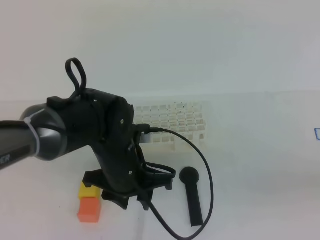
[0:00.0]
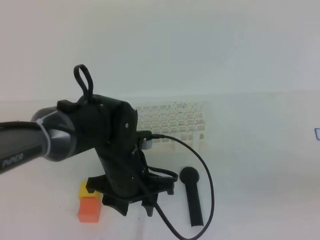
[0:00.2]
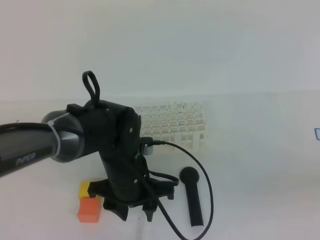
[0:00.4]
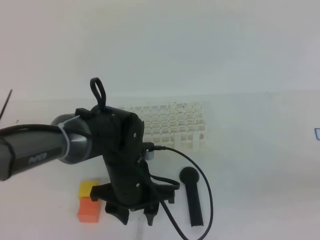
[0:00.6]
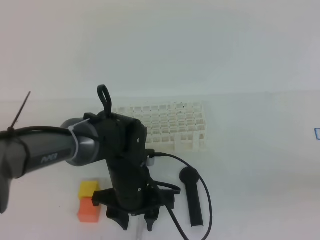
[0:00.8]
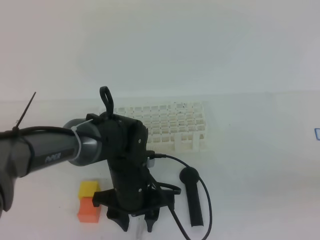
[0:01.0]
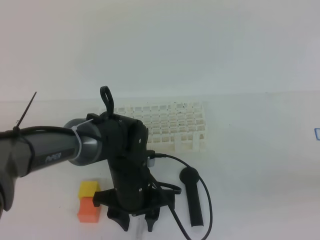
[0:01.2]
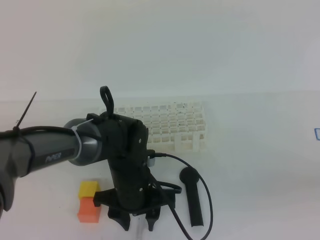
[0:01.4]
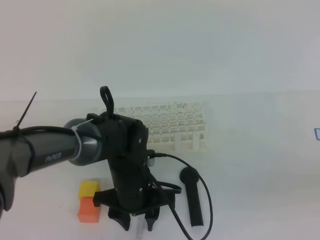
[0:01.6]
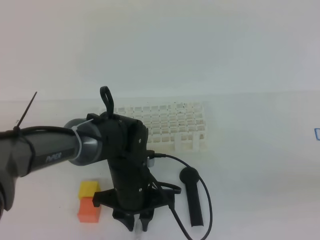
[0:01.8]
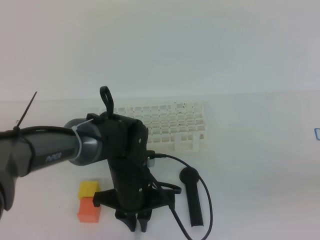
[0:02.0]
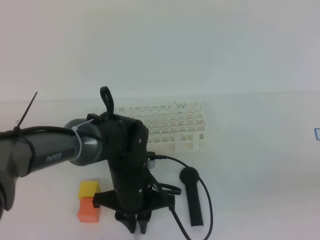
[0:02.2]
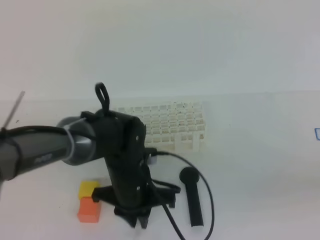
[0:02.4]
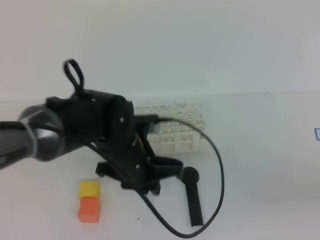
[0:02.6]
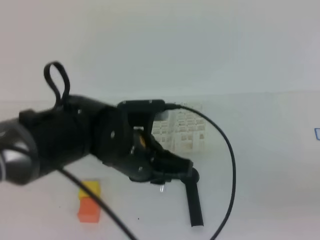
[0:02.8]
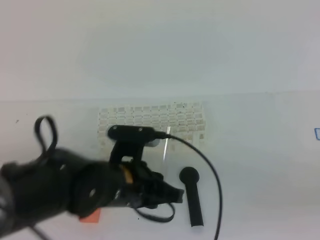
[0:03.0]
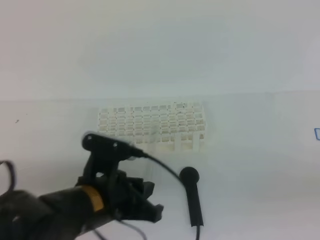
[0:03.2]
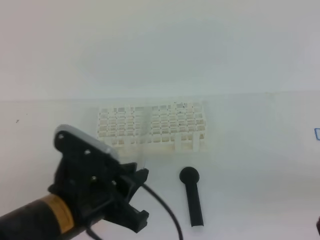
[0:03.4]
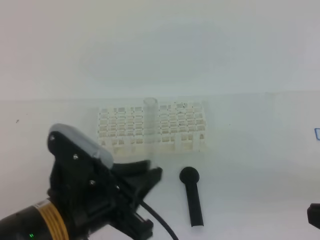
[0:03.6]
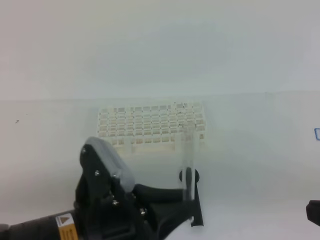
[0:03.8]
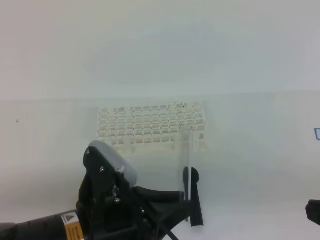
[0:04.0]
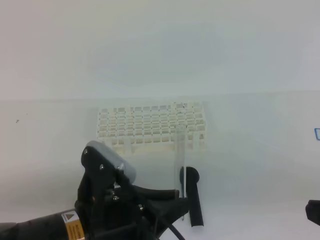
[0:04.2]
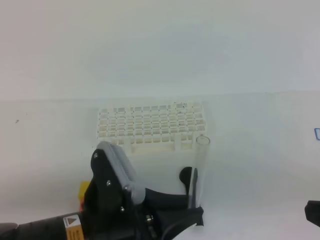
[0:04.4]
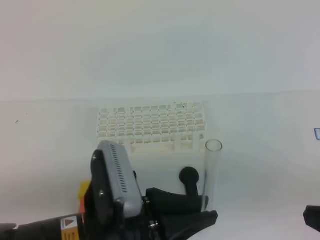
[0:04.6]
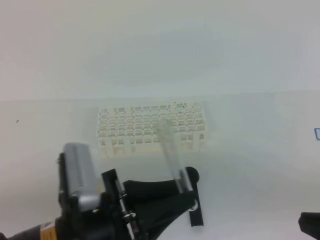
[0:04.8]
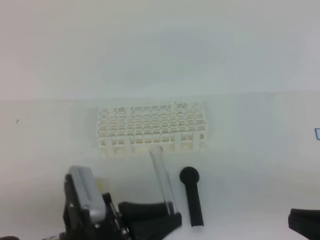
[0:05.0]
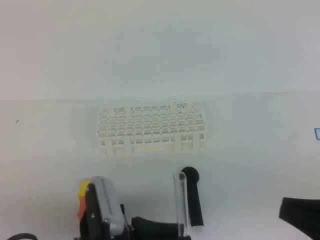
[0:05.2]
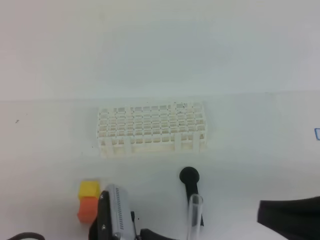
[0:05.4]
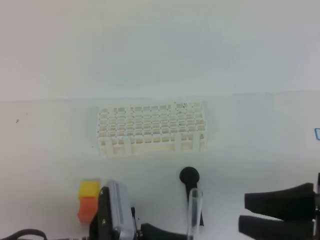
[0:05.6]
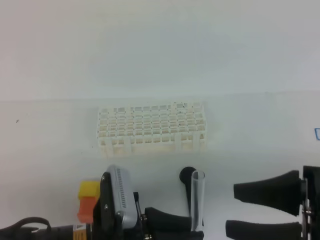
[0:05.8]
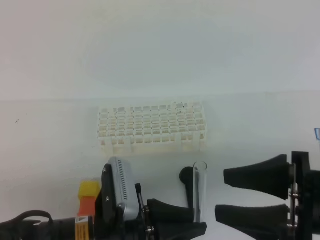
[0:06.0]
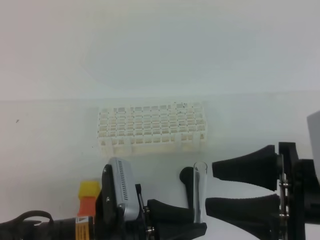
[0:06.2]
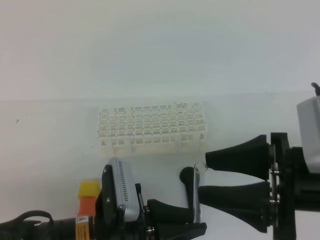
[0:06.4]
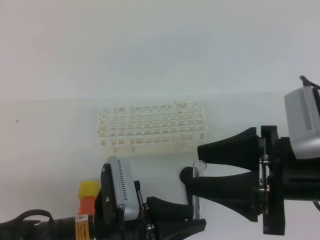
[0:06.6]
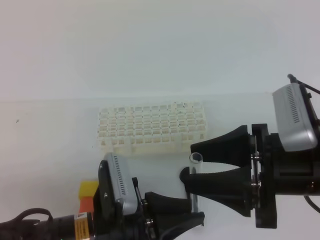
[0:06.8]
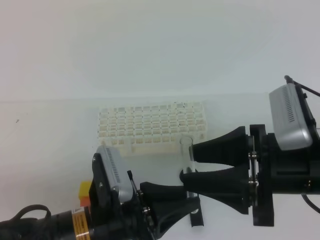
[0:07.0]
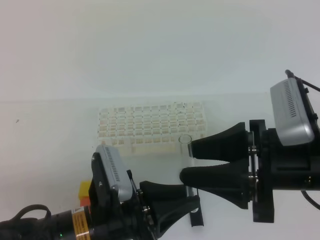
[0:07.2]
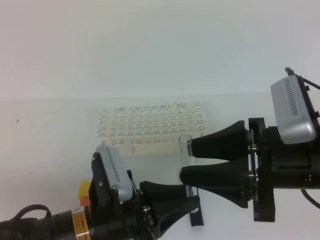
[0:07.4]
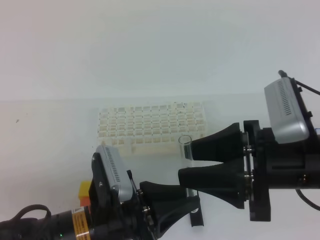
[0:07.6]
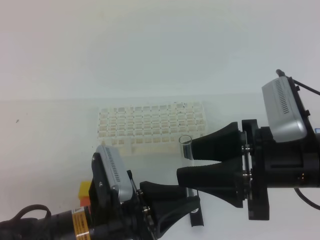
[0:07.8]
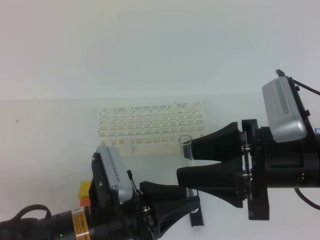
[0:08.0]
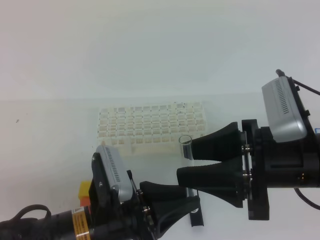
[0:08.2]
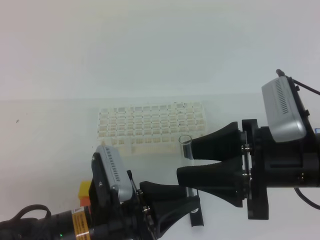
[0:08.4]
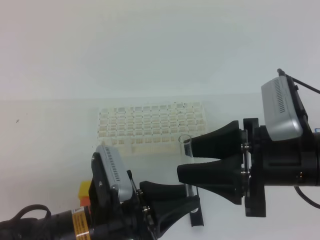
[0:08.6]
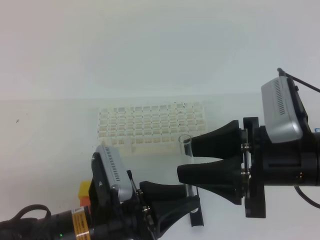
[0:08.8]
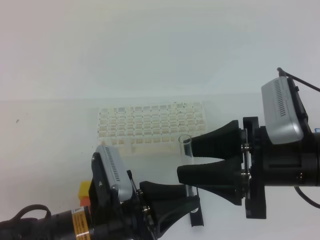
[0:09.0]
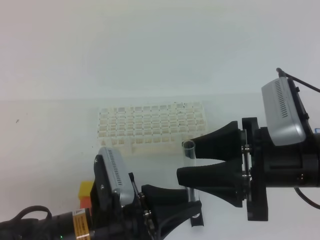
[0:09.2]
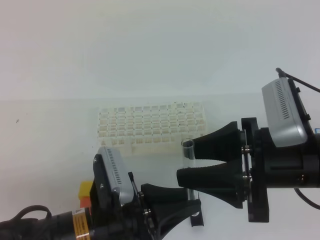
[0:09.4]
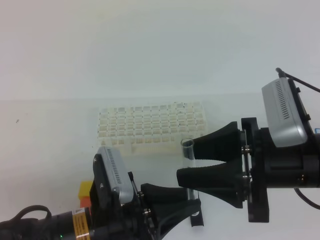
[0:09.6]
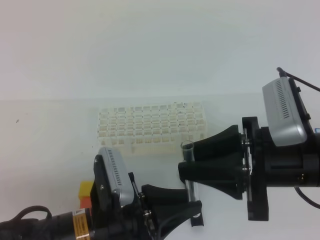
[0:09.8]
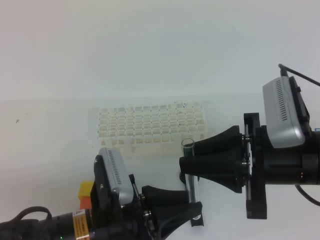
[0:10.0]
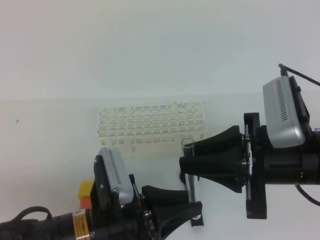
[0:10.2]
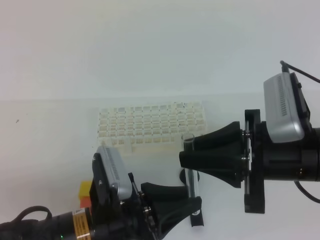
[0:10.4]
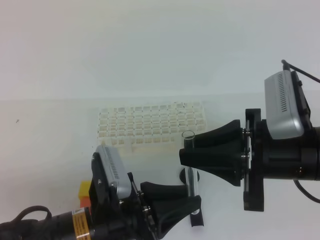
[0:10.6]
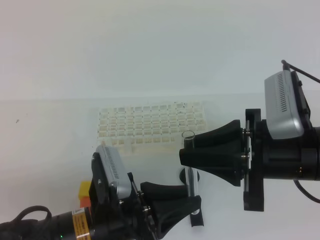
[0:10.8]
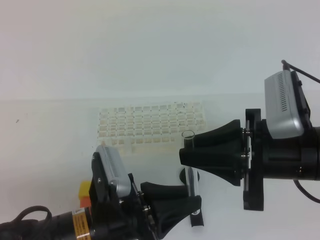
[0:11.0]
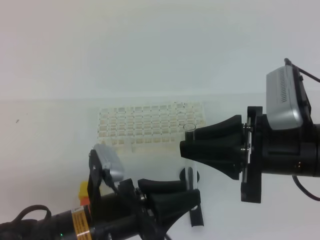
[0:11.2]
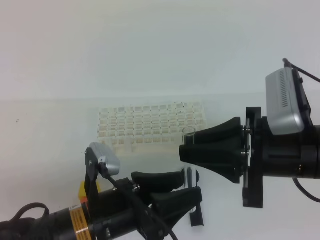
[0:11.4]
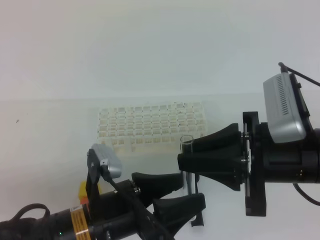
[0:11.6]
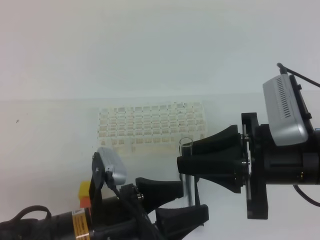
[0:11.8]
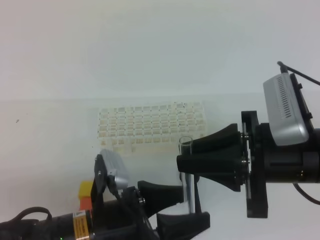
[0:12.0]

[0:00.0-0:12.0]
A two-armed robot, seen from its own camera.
0:00.0 to 0:01.6: The left gripper heads downward, covering approximately 5 cm.
0:01.6 to 0:03.0: The left gripper is displaced upward and backward by roughly 10 cm, and closes up.
0:03.0 to 0:04.4: The left gripper shifts roughly 10 cm backward.
0:04.4 to 0:06.0: The left gripper shifts by roughly 5 cm. Meanwhile the right gripper is displaced to the left by approximately 5 cm, and opens its fingers.
0:06.0 to 0:07.6: The right gripper travels forward by some 5 cm.
0:07.6 to 0:09.0: Both grippers stay about where they are.
0:09.0 to 0:10.4: The right gripper closes up.
0:10.4 to 0:12.0: The left gripper opens.

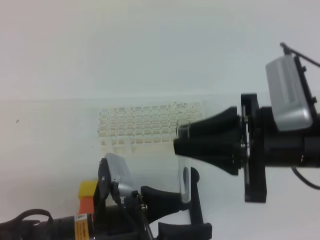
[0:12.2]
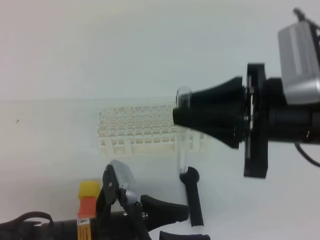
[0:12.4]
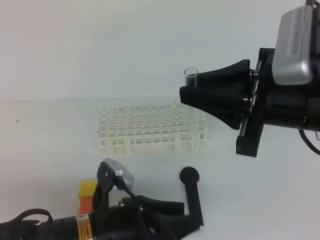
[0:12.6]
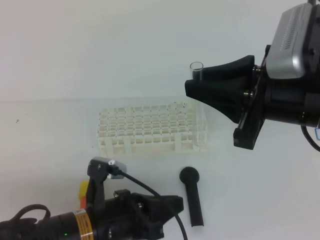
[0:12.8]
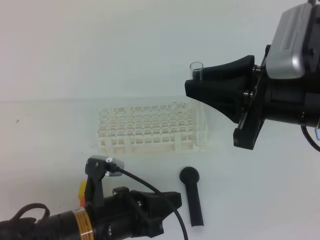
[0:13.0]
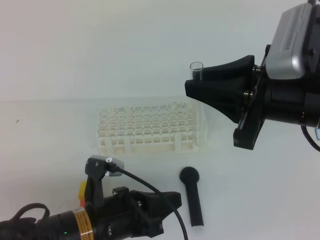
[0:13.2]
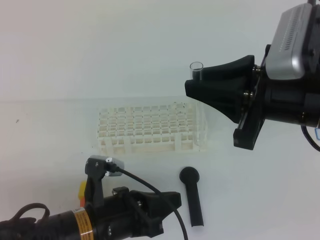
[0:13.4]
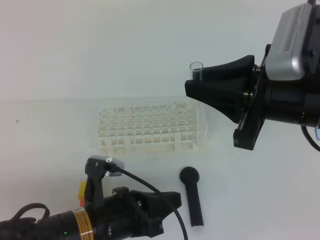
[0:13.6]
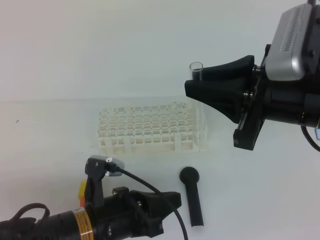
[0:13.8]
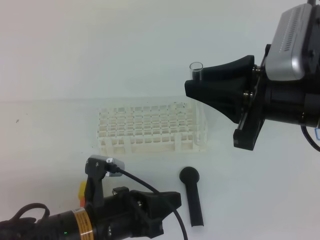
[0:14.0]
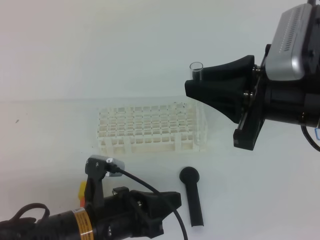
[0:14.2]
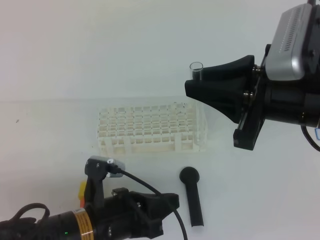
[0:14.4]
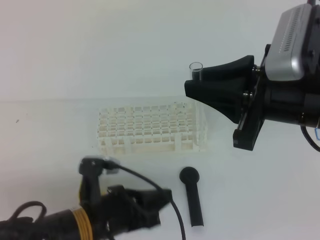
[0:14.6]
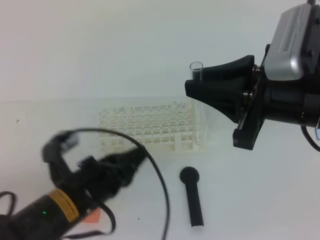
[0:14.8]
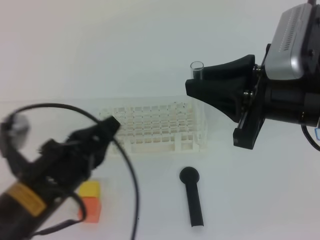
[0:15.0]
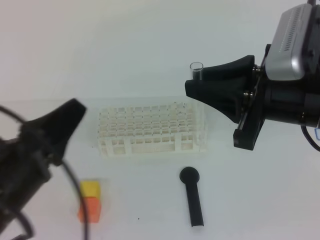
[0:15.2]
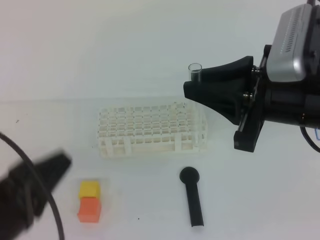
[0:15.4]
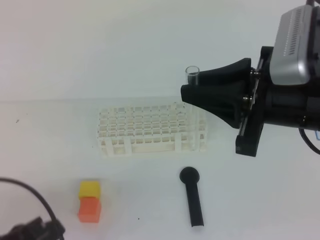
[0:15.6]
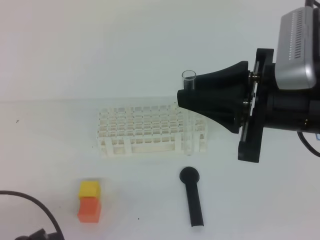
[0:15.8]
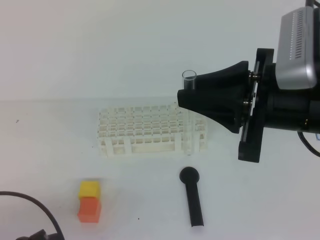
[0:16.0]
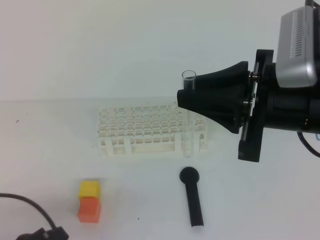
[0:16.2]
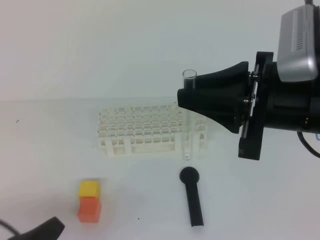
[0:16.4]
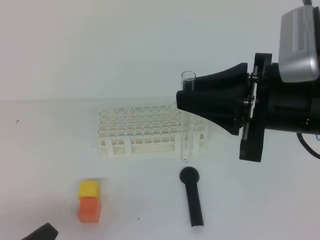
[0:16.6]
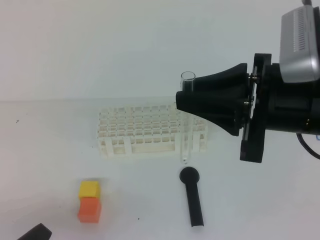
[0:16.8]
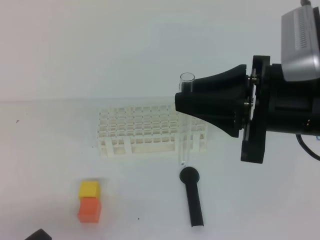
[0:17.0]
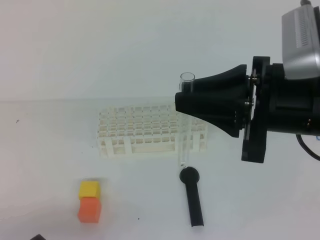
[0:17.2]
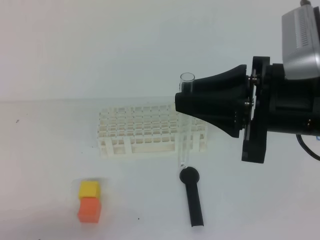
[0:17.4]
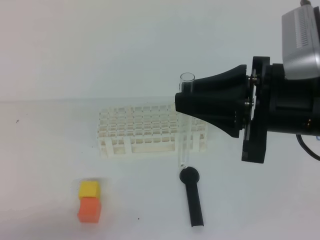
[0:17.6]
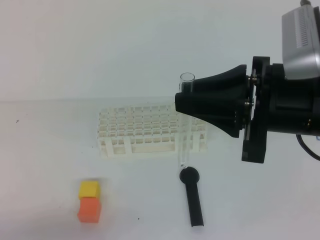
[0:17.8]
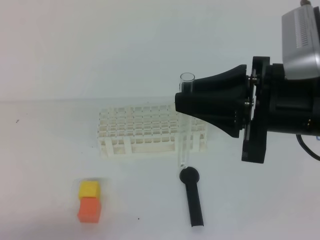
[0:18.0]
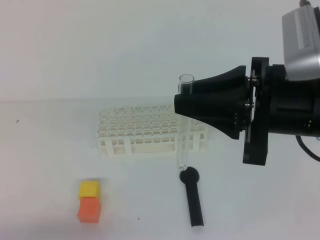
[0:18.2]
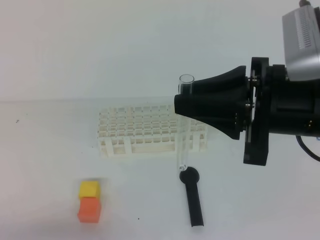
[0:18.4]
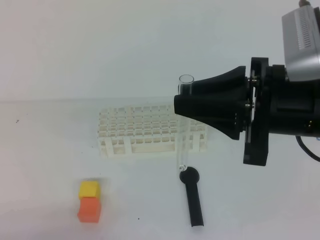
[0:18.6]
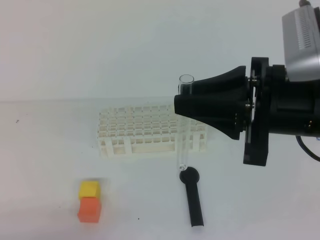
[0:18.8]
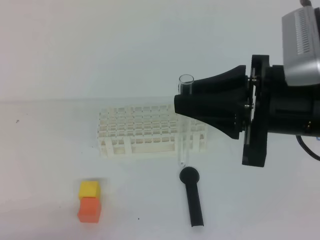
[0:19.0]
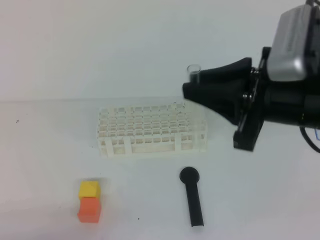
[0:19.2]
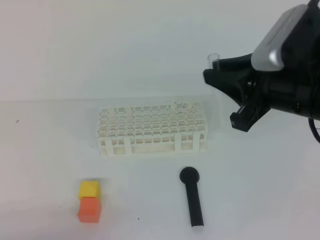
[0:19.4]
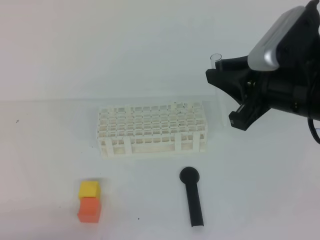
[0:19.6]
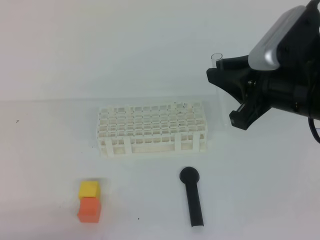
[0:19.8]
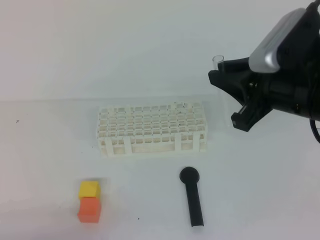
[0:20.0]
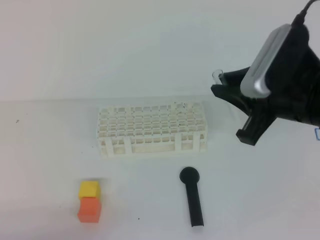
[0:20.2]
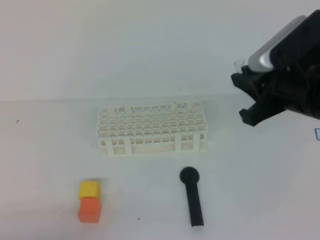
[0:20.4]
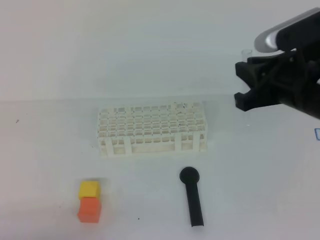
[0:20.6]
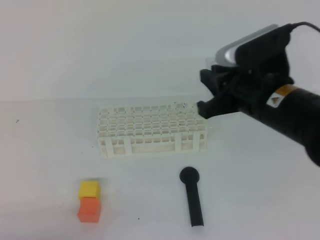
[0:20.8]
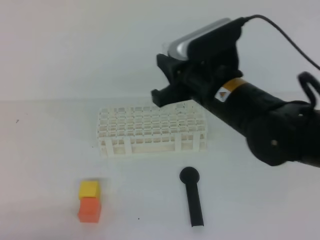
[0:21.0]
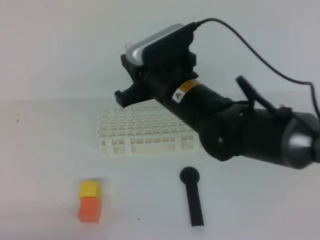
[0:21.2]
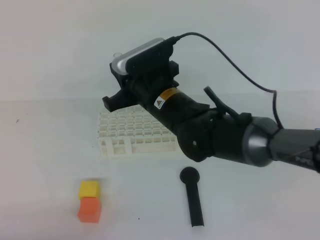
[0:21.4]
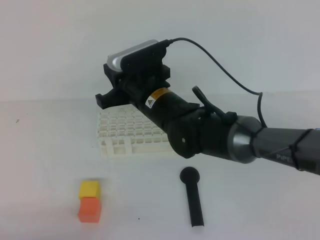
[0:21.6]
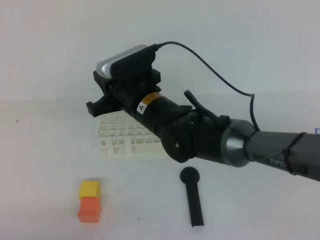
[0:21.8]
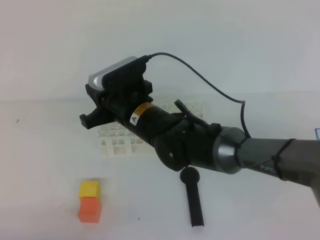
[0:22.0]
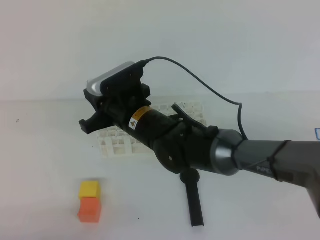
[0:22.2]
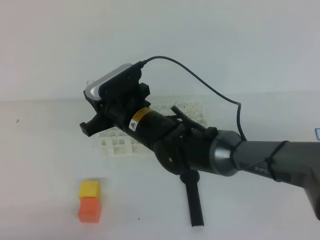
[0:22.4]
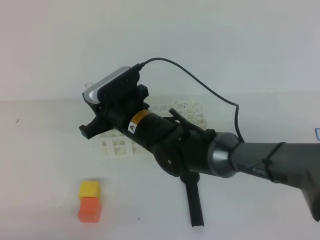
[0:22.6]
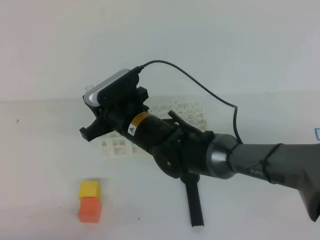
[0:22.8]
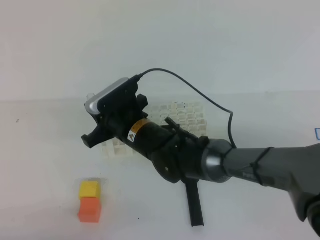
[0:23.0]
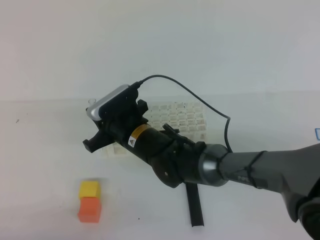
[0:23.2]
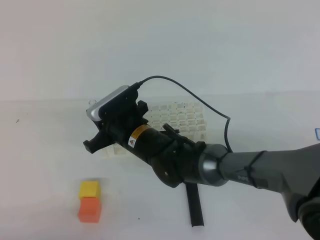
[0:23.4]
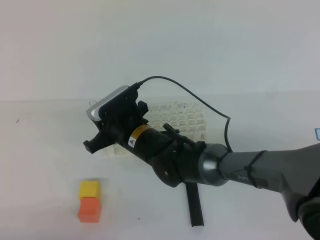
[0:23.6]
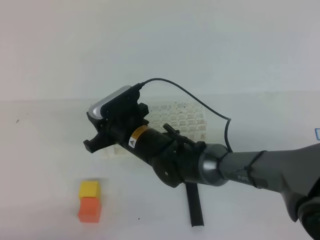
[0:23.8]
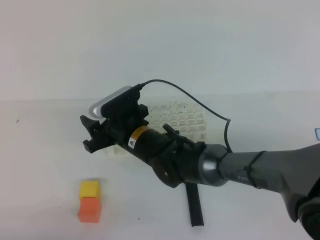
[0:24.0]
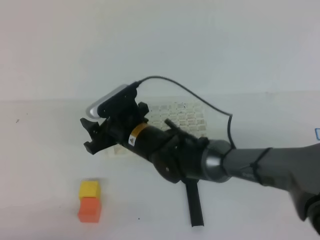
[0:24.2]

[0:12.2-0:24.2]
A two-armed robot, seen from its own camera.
0:12.2 to 0:13.8: The left gripper closes its fingers.
0:13.8 to 0:15.2: The left gripper shifts about 15 cm upward and to the left.
0:15.2 to 0:16.6: The left gripper travels downward, backward and to the left by about 15 cm.
0:16.6 to 0:18.2: The grippers stay close to where they were, moving slightly.
0:18.2 to 0:19.8: The right gripper ends up some 5 cm from where it was.
0:19.8 to 0:21.2: The right gripper heads to the left and forward, covering about 15 cm.
0:21.2 to 0:22.6: The right gripper travels to the left and downward by some 10 cm.
0:22.6 to 0:24.2: The right gripper opens up.
